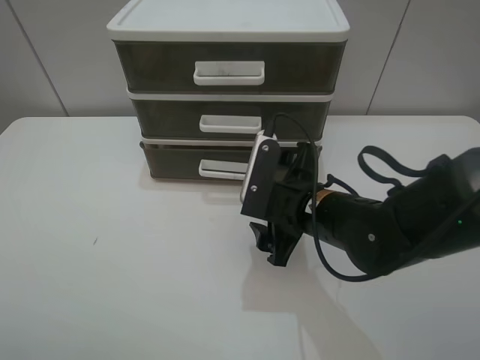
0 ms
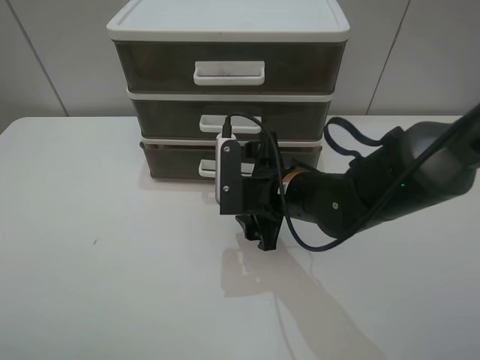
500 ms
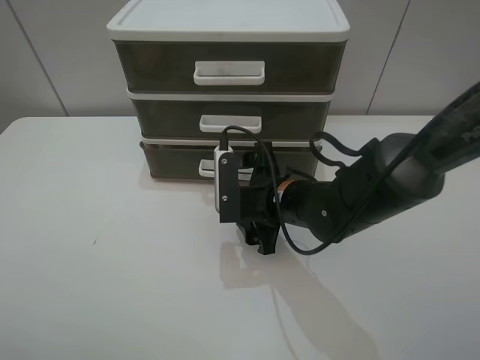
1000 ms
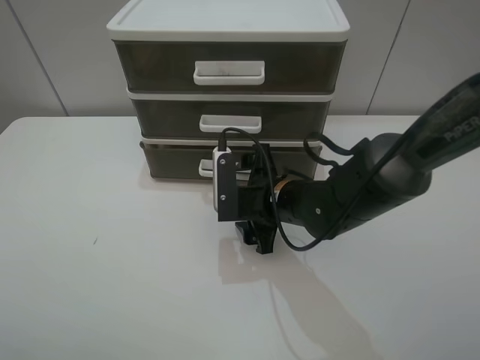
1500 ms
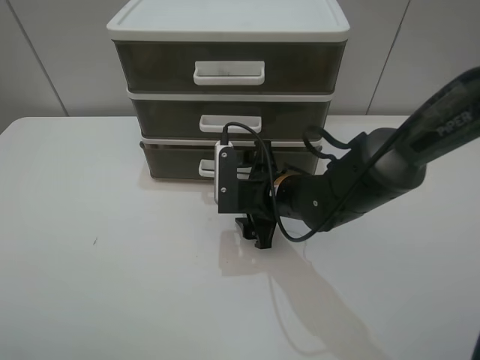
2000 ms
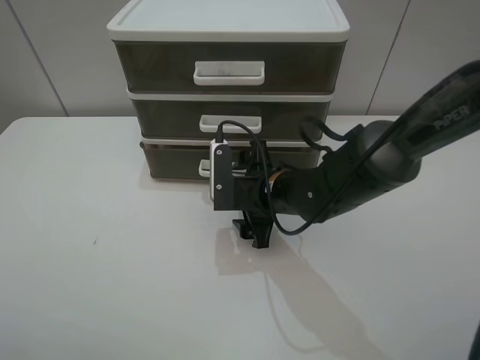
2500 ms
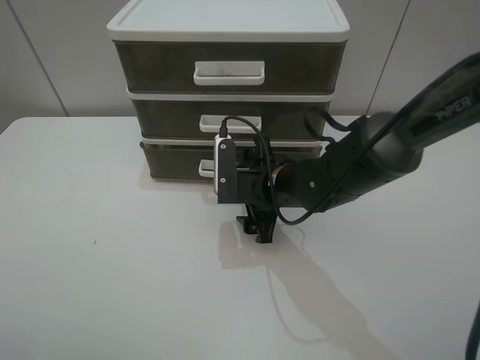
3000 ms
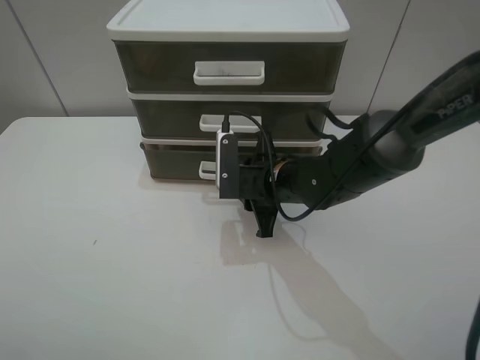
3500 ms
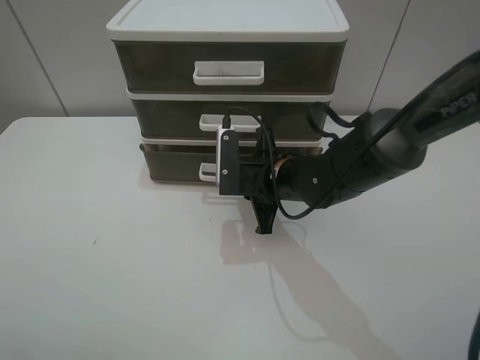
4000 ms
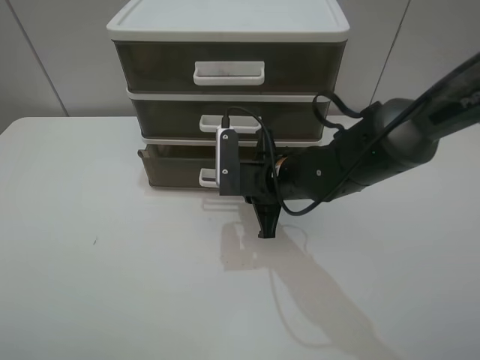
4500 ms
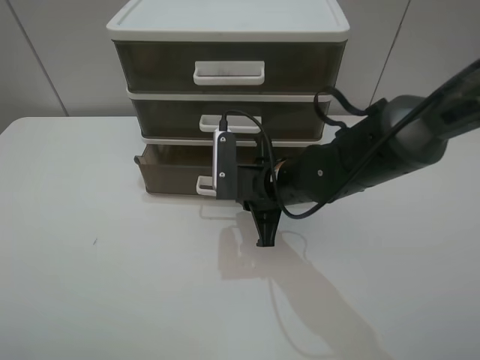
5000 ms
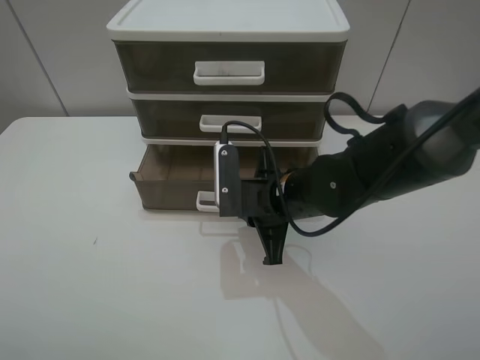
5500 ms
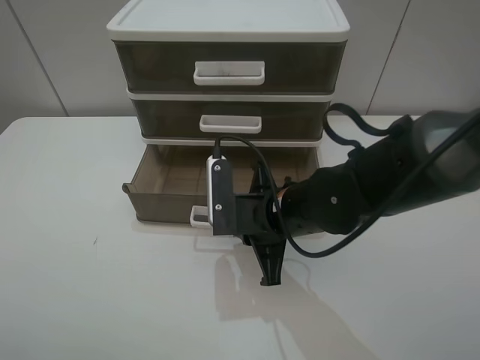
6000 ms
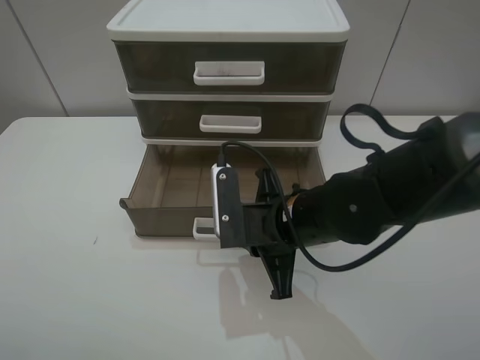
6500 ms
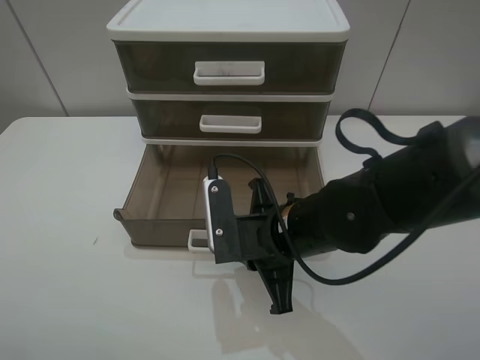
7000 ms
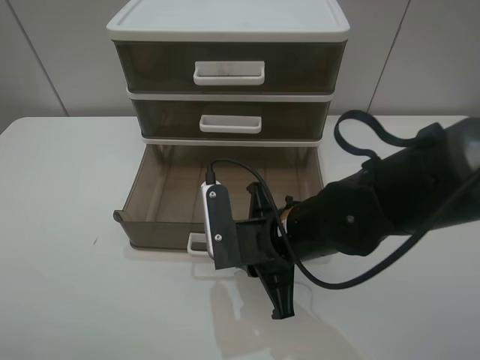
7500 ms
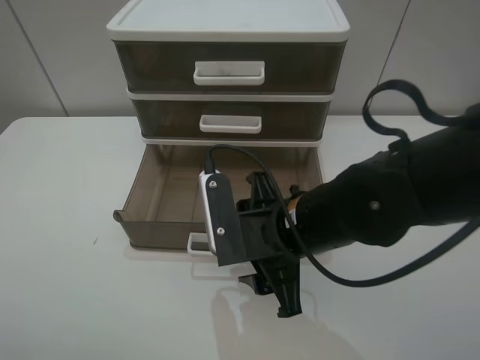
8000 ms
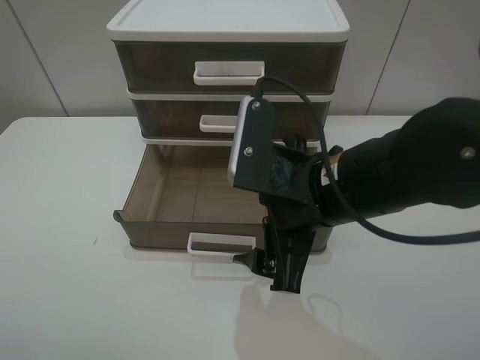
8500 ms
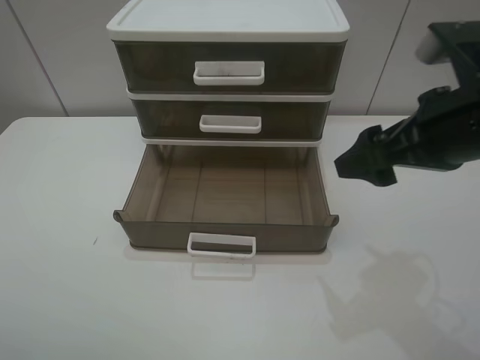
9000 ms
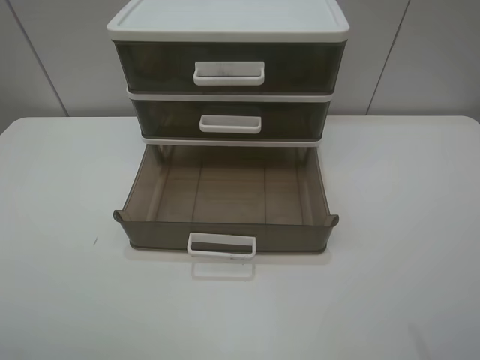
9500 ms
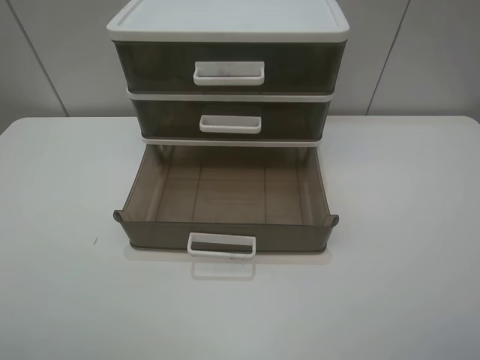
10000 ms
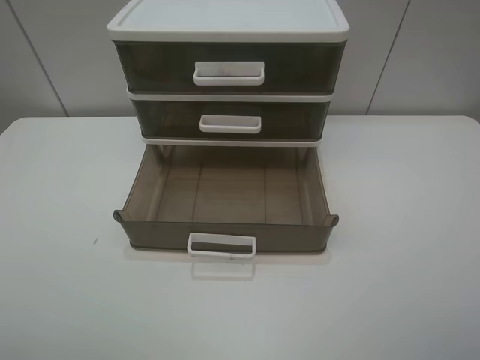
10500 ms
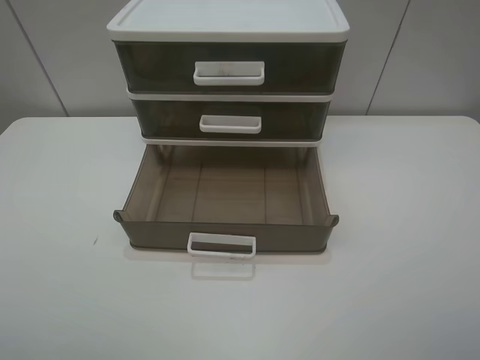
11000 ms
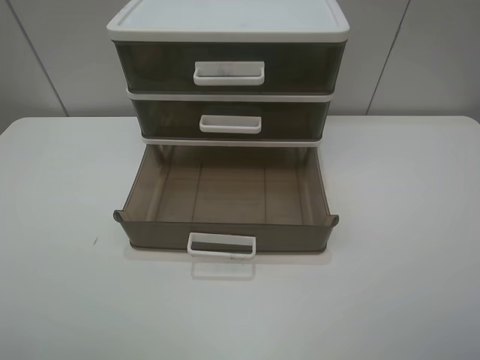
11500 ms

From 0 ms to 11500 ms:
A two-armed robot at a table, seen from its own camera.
Task of the whole recording: open the bottom drawer.
Step, from 0 ms to 4000 ms: Grab the bottom drawer with the right gripper.
Step, from 4500 ms to 8000 ms: Pull open the drawer with the right gripper.
From 0 ms to 2000 ms: The right gripper moves forward, roughly 5 cm.
From 2000 ms to 4000 ms: The right gripper closes.
From 4000 ms to 6000 ms: The right gripper goes roughly 5 cm backward.
From 6000 ms to 7500 ms: The grippers move only a little.
From 7500 ms to 9500 ms: The right gripper goes about 35 cm upward, to the right and backward, and opens up.
